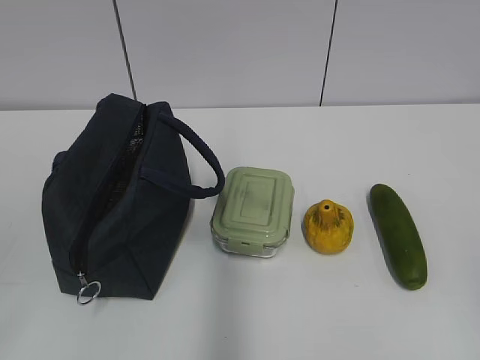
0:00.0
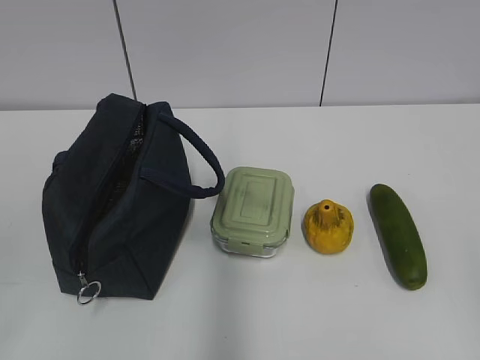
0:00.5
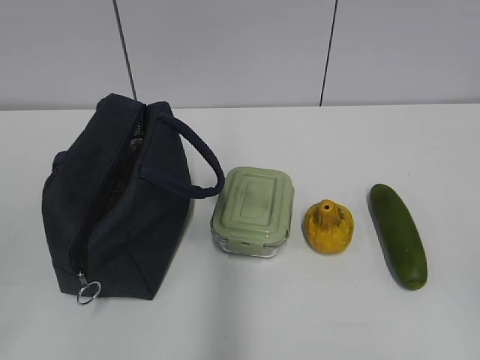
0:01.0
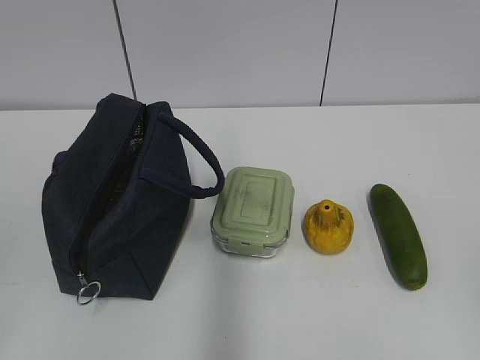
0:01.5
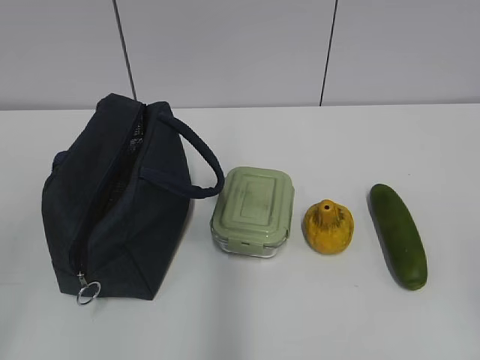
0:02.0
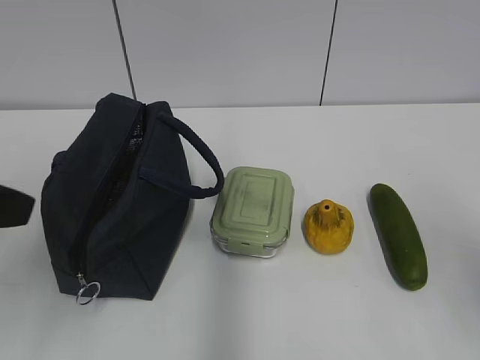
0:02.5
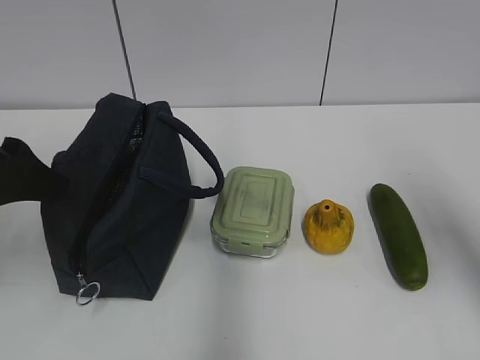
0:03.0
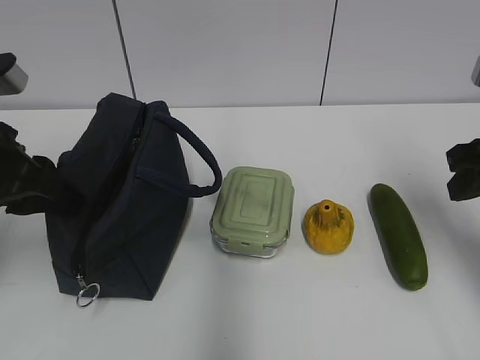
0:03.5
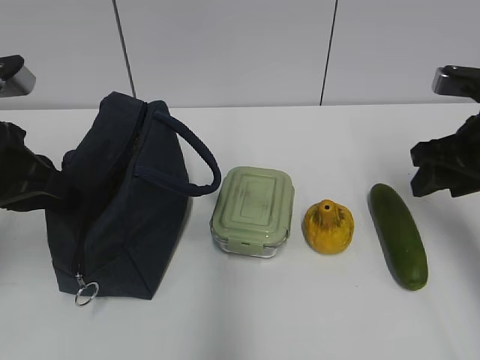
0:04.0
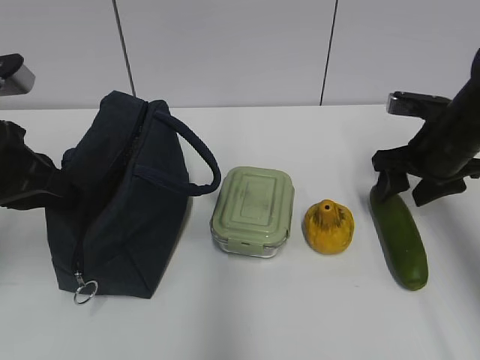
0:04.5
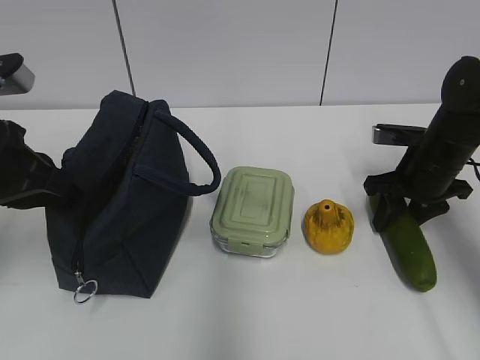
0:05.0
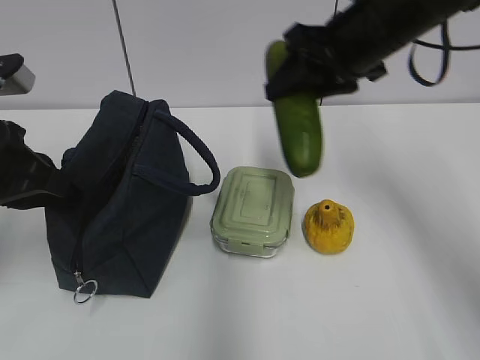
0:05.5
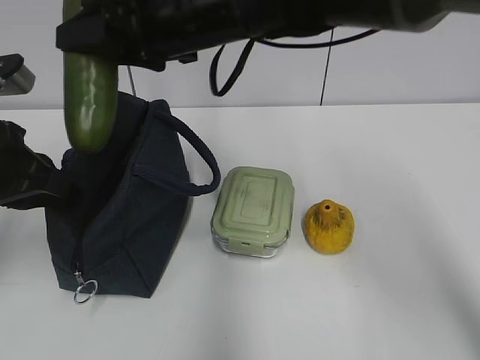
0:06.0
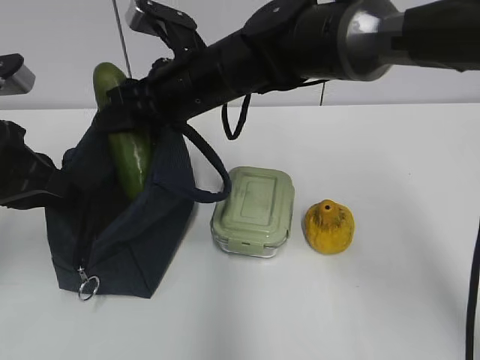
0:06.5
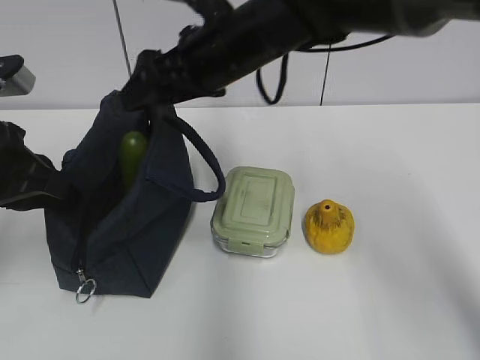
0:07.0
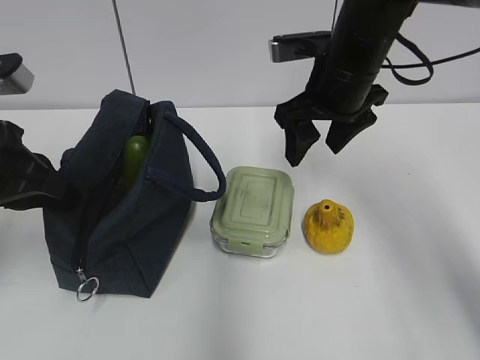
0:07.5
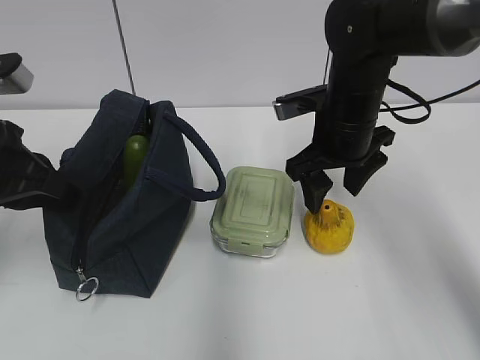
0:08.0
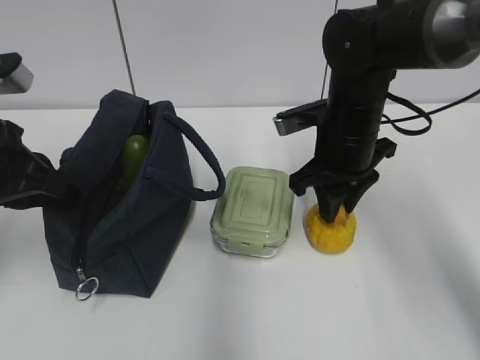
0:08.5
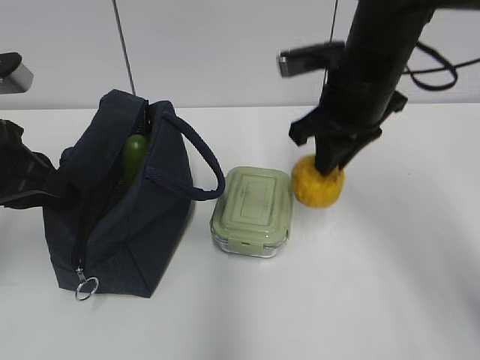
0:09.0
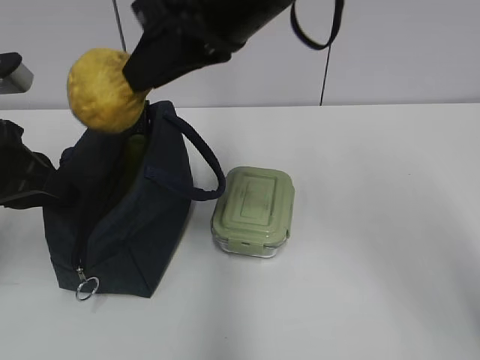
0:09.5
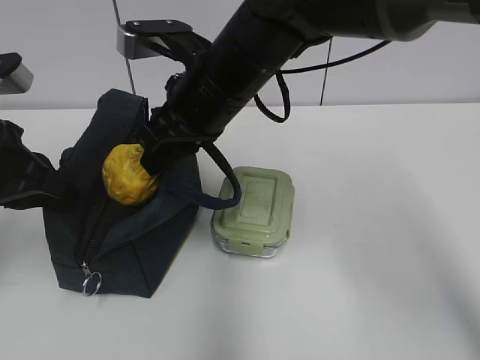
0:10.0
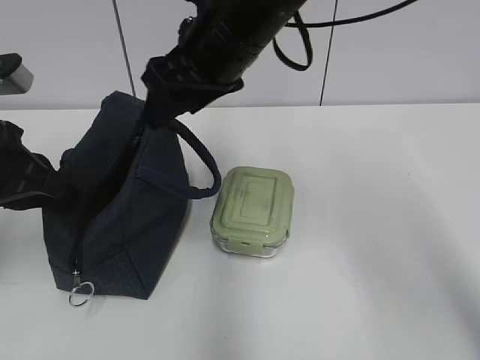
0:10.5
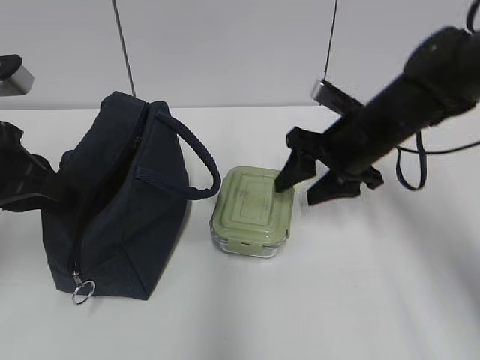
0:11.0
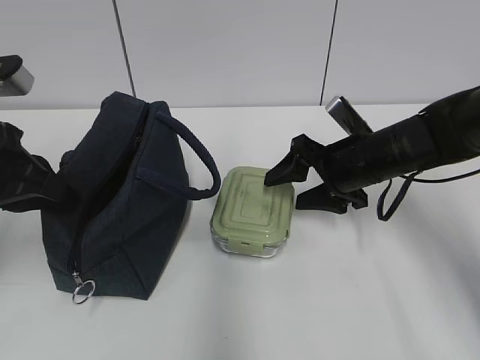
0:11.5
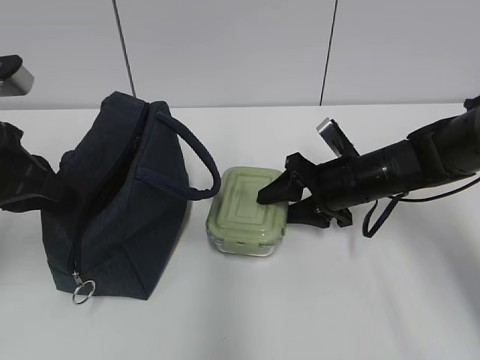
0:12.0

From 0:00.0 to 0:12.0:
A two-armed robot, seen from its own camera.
Step, from 0:00.0 to 0:04.5: Grab the cucumber with your right hand.
Step, from 0:07.0 to 0:08.5: Grab the pear with your right hand.
Step, from 0:09.0 to 0:10.0: Place it into the bag with your right hand.
From 0:02.0 to 0:04.0: The grippers both shift forward by approximately 25 cm. The left gripper closes.
From 0:04.0 to 0:06.0: The right gripper travels to the left by approximately 30 cm.
From 0:06.0 to 0:08.0: The right gripper moves to the right and downward, roughly 20 cm, and opens up.
From 0:08.0 to 0:10.0: The right gripper heads to the left and upward, covering about 15 cm, and closes up.
From 0:10.0 to 0:12.0: The right gripper shifts some 25 cm to the right and downward, and opens up.

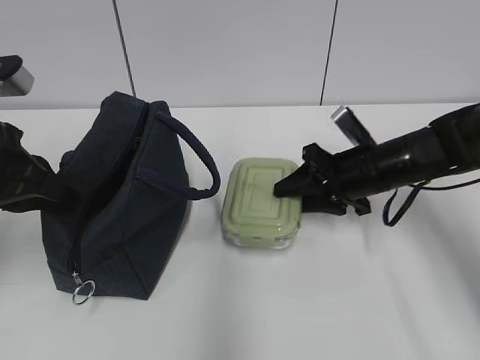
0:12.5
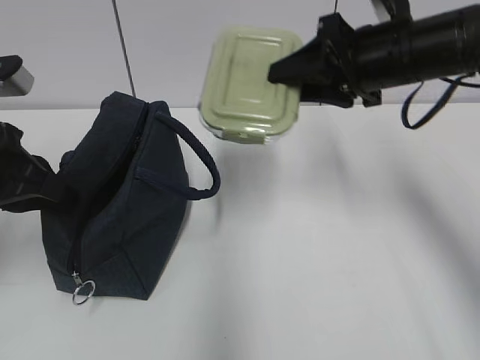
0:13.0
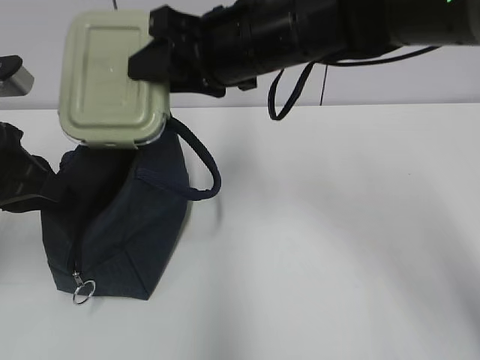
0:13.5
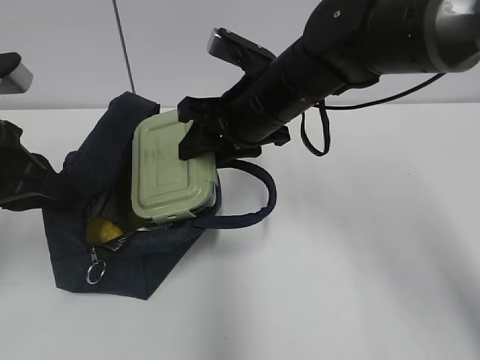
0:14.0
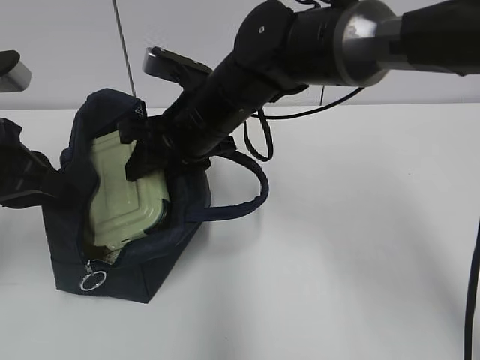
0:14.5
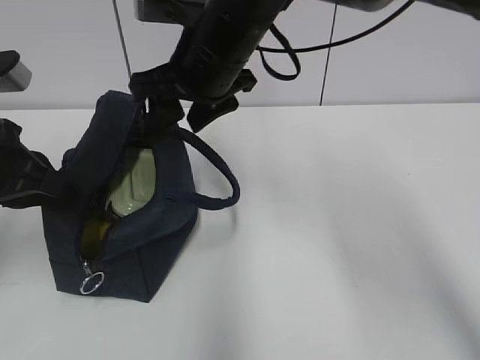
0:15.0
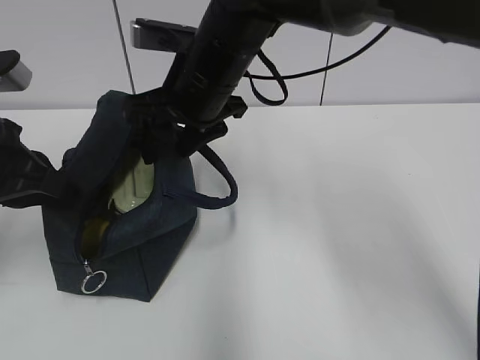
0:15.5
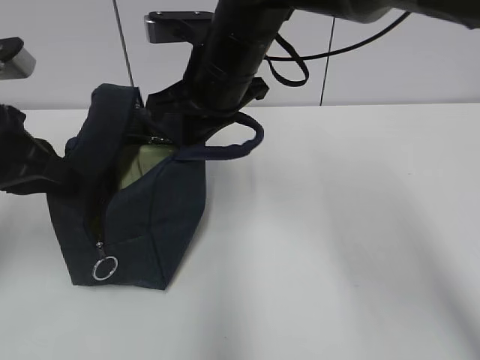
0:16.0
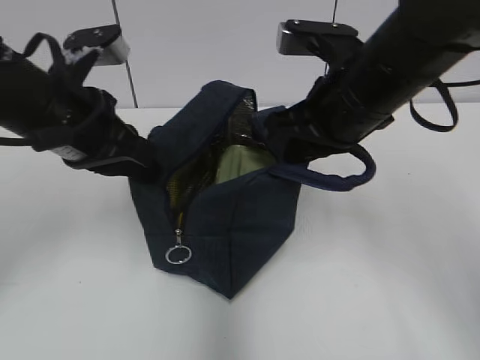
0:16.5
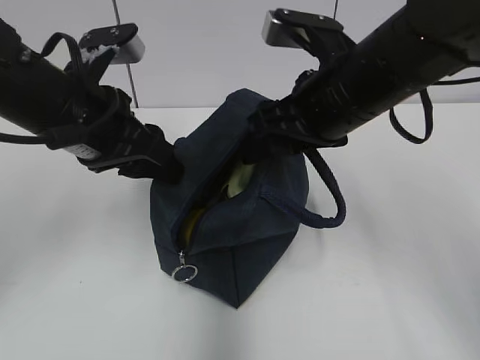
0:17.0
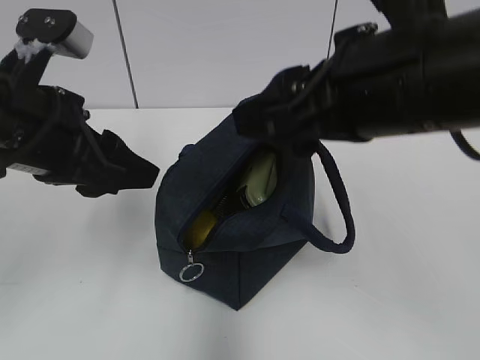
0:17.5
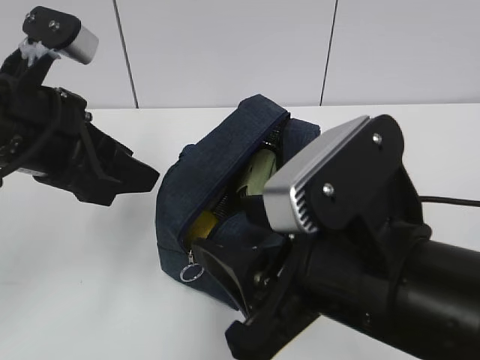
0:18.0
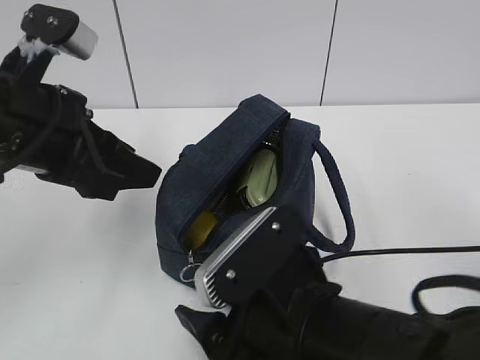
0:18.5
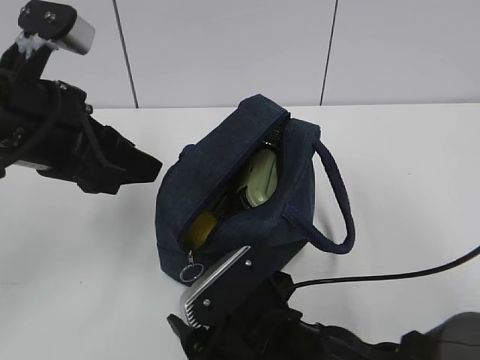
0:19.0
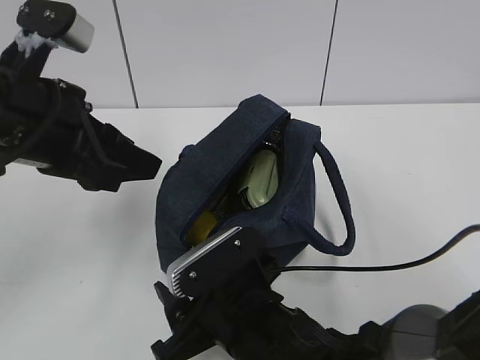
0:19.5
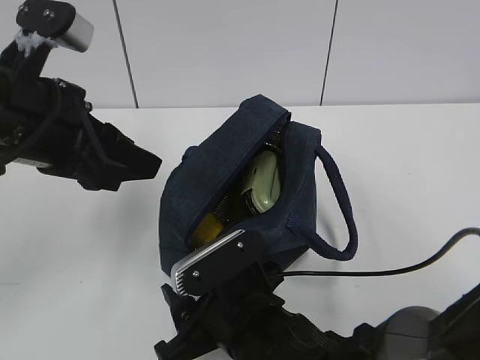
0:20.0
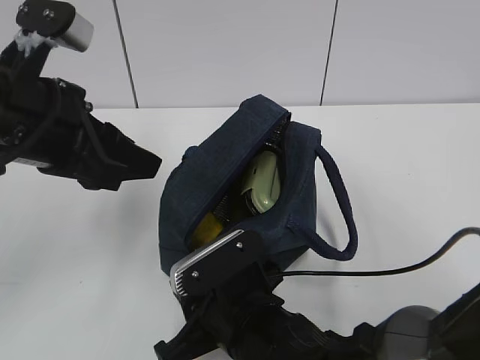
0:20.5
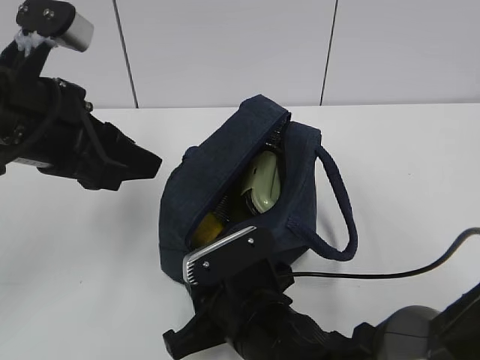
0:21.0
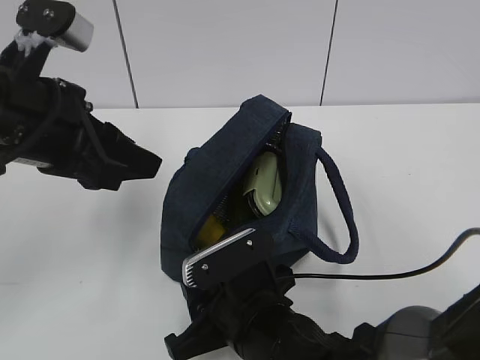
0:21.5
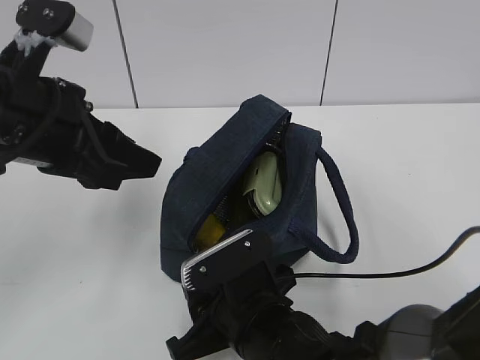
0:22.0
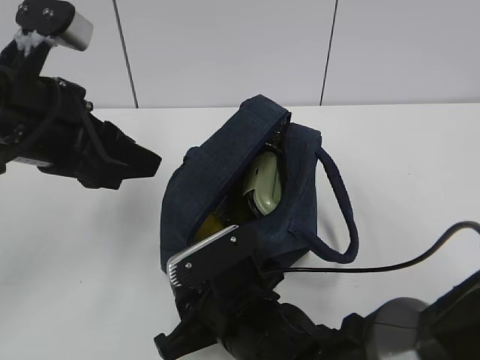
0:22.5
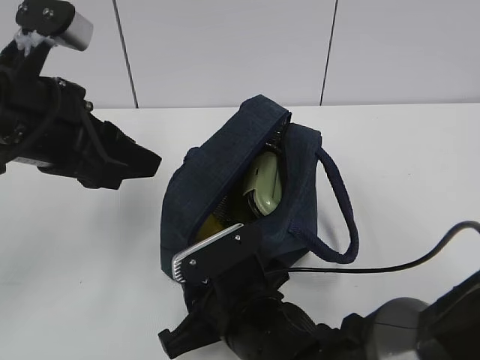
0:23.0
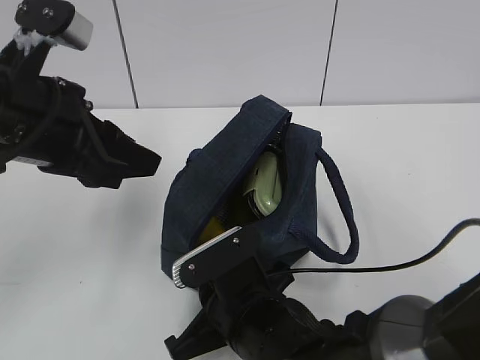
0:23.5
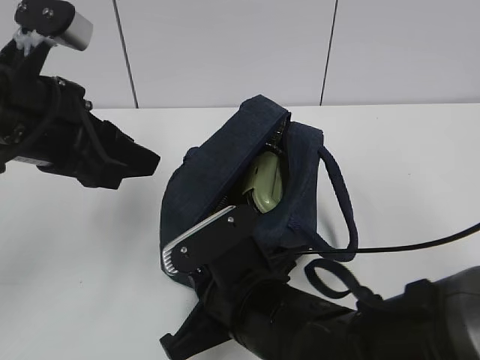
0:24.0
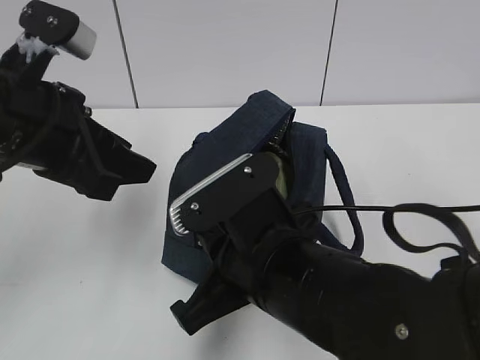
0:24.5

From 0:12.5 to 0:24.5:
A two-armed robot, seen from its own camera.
Step, from 0:15.0 to 0:15.5: Grab the lunch bag with your right hand.
Step, from 0:16.0 to 0:17.0: Move the lunch bag to the right.
From 0:12.5 to 0:14.5: The right gripper is displaced to the left by approximately 20 cm.
From 0:14.5 to 0:16.5: The right gripper is displaced to the right and backward by approximately 15 cm, and closes up. Meanwhile the left gripper goes roughly 10 cm to the right.
From 0:16.5 to 0:18.5: The left gripper goes about 5 cm backward, and opens up, while the right gripper heads backward, downward and to the left, covering about 20 cm, and opens up.
From 0:18.5 to 0:20.5: The right gripper heads downward, covering some 5 cm, and closes up.
From 0:20.5 to 0:22.5: There are only small adjustments of the grippers.
From 0:22.5 to 0:24.5: The right gripper heads upward, covering approximately 10 cm, and closes its fingers.

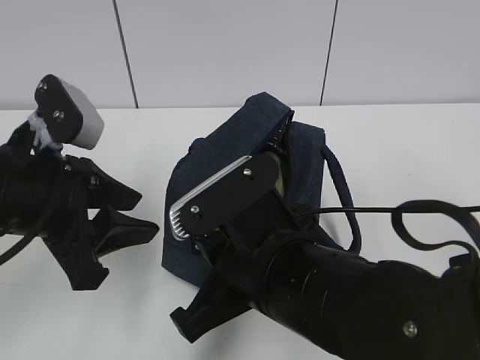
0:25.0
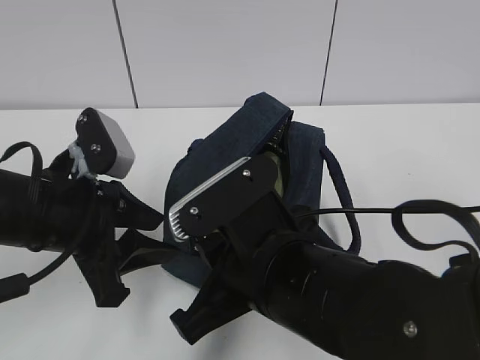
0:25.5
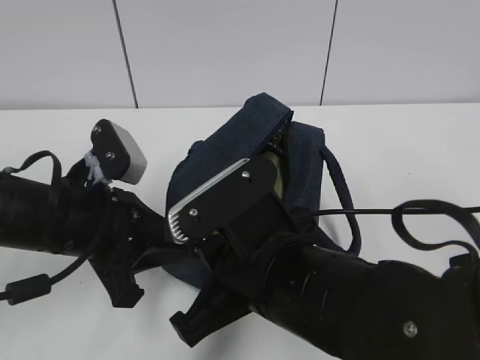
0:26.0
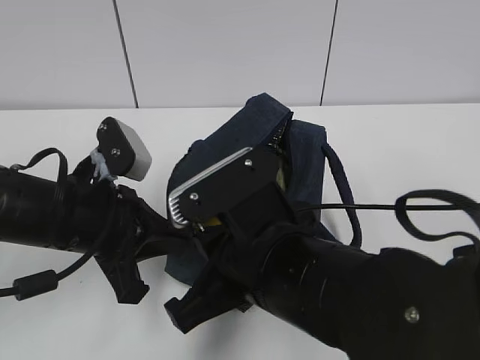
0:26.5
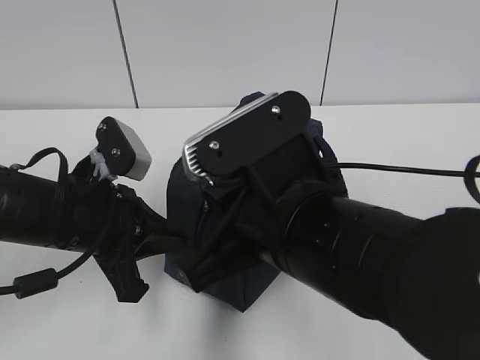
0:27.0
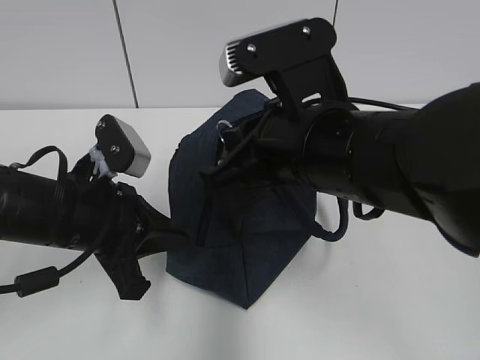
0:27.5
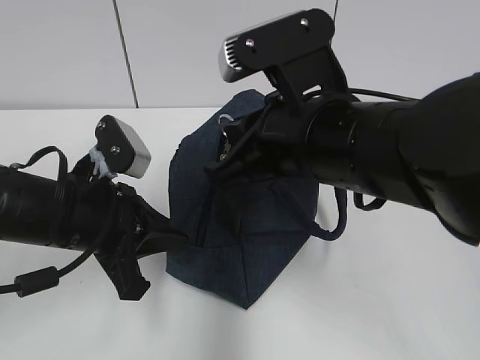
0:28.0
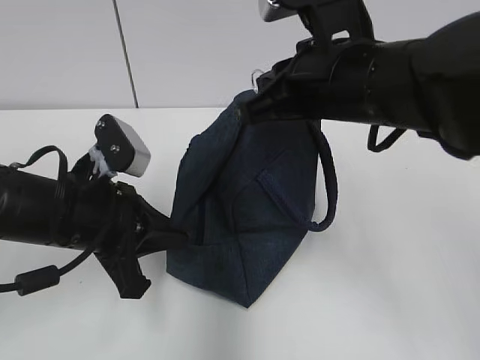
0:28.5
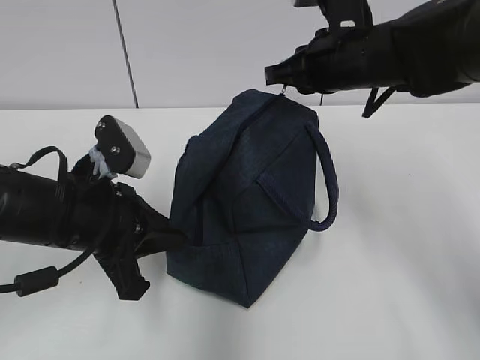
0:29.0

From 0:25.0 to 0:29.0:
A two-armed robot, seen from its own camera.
From 0:25.0 to 0:27.0: The left gripper moves downward, roughly 5 cm, and closes its fingers.
From 0:27.0 to 0:29.0: The right gripper goes roughly 25 cm forward and to the right.
